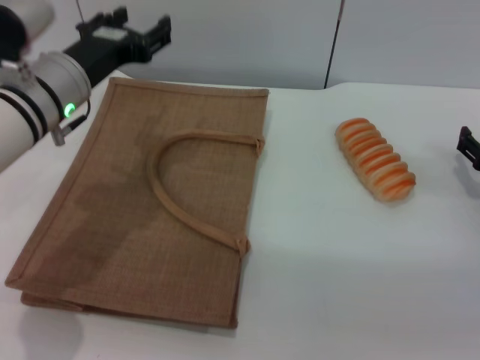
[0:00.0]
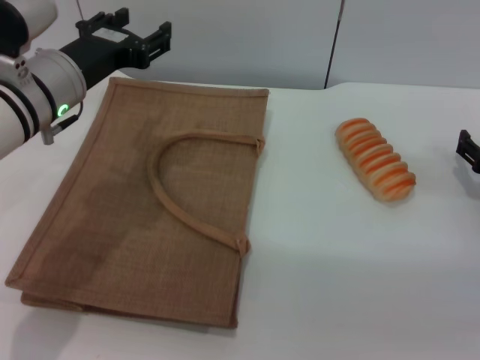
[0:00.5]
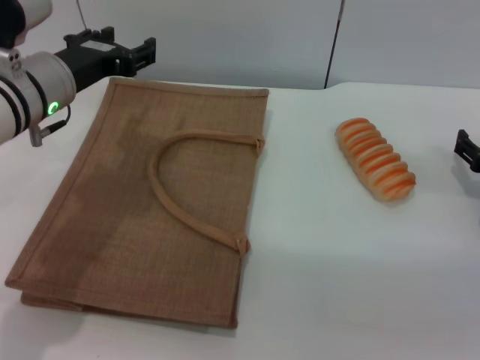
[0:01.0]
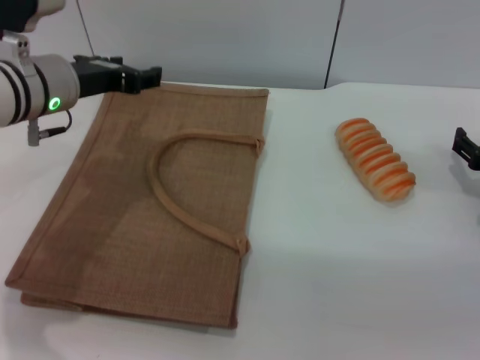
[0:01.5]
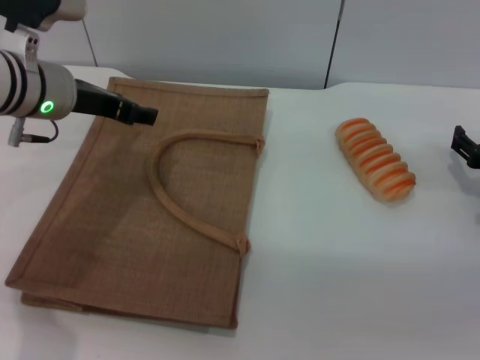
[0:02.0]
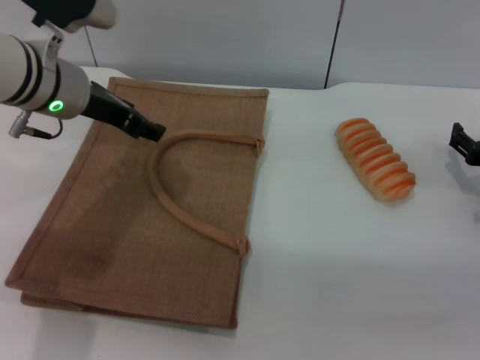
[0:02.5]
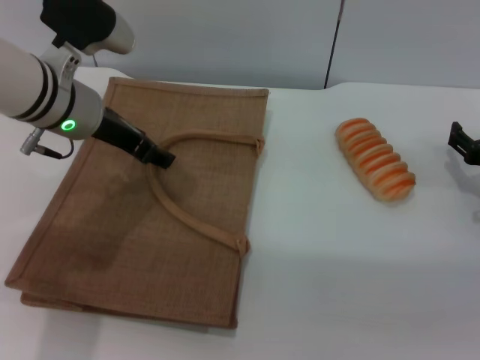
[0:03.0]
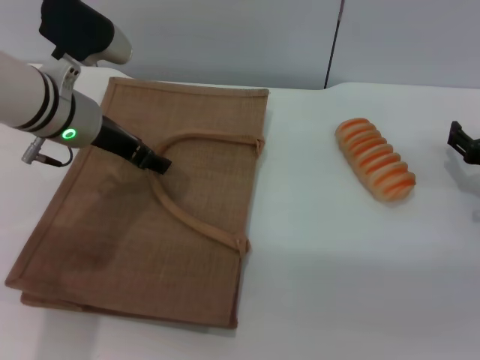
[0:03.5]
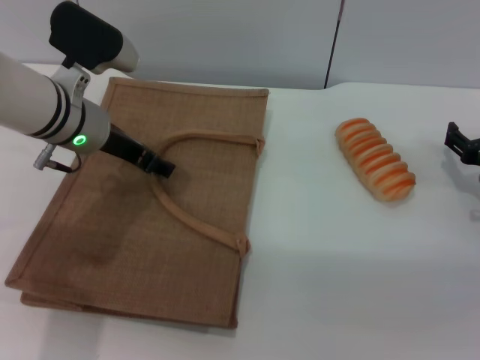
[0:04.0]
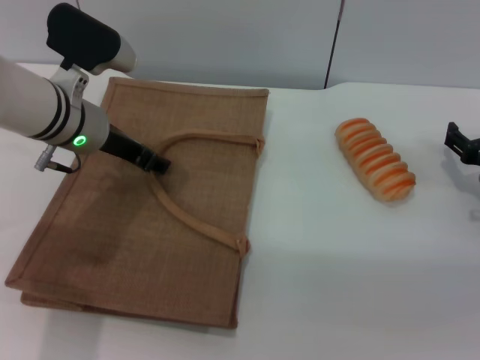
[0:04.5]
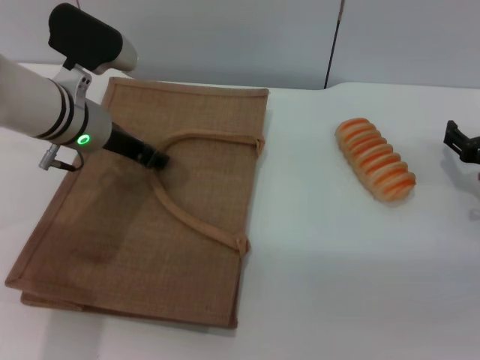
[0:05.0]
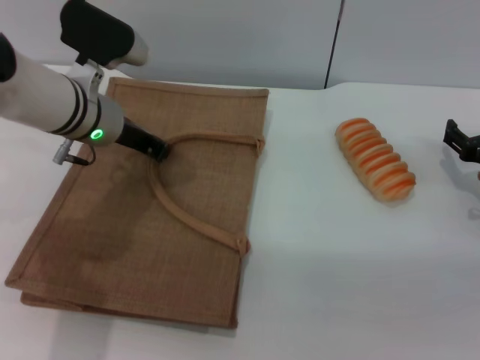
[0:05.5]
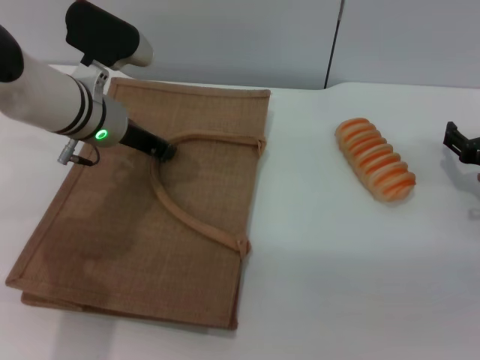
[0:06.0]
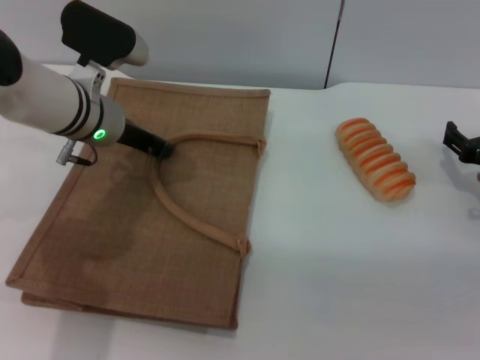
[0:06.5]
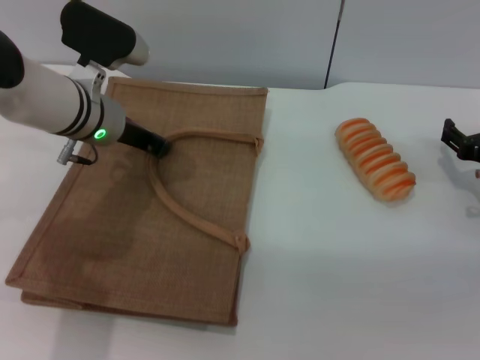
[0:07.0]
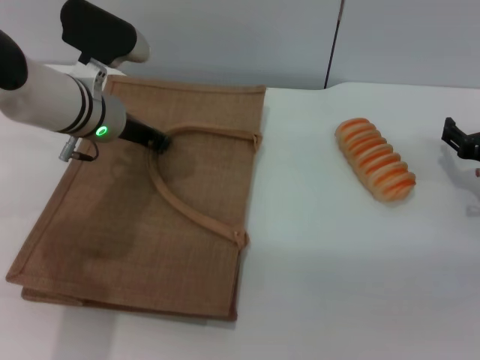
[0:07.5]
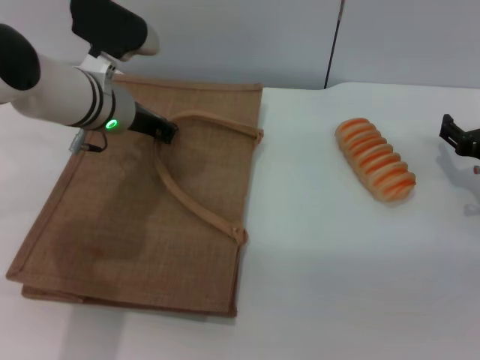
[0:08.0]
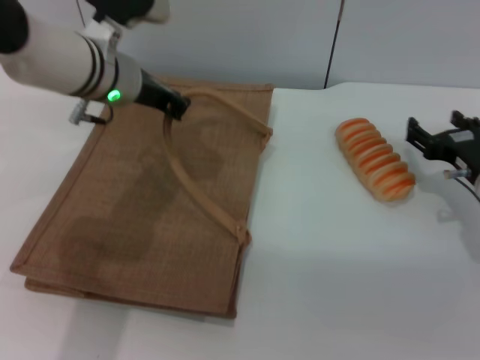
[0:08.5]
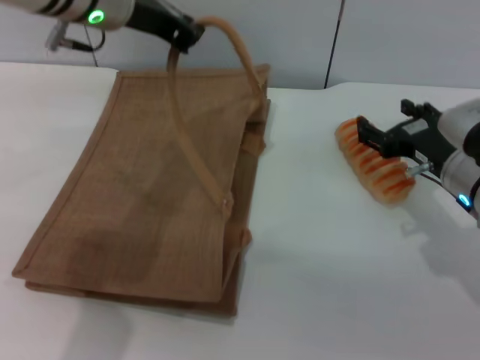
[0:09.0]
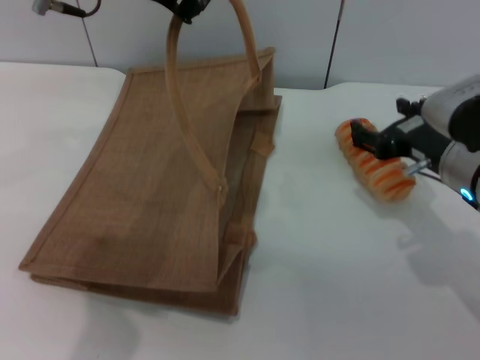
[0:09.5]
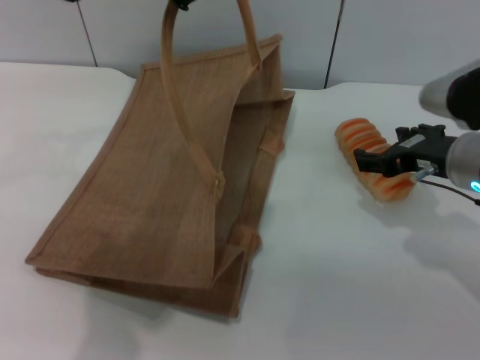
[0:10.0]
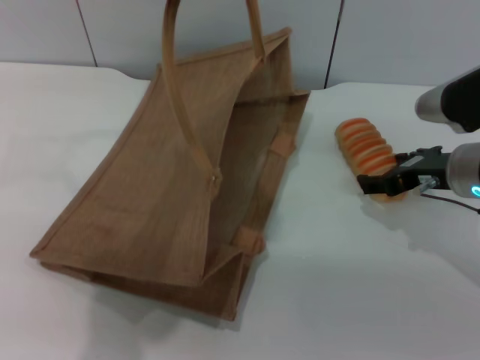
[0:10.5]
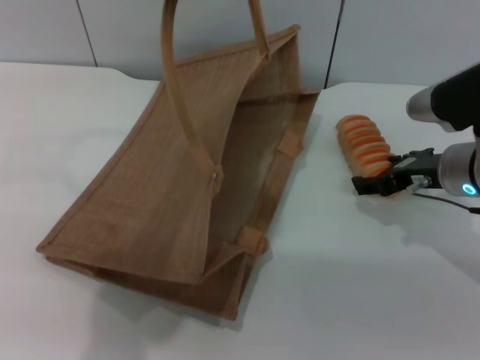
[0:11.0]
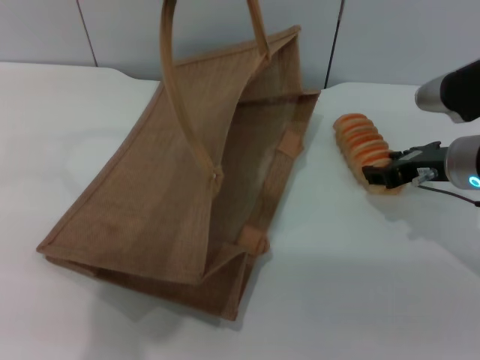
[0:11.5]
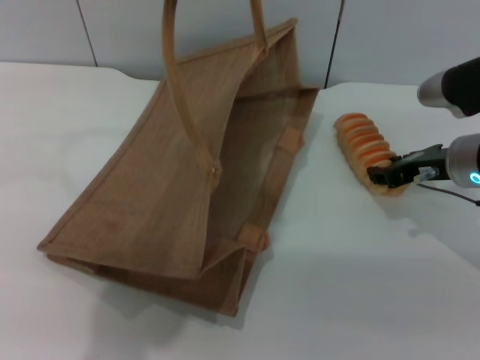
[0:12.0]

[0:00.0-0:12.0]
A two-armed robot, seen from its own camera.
Task of the whole recording: pick up the bread from the table and place it in the brown handbag.
Step, 0:00.0 to 0:08.0: Lift the woven bag with the left gripper to open it.
0:02.0 to 0:04.0: The grippers make only small movements.
0:04.0 to 0:06.0: The left gripper closes up.
0:06.0 to 0:08.0: The grippers make only small movements.
0:08.0 to 0:10.0: The right gripper is displaced upward and to the left by approximately 15 cm, while the left gripper shifts approximately 20 cm upward.
0:10.0 to 0:12.0: The right gripper closes its fingers.

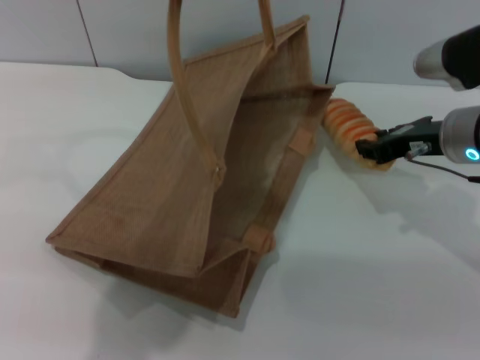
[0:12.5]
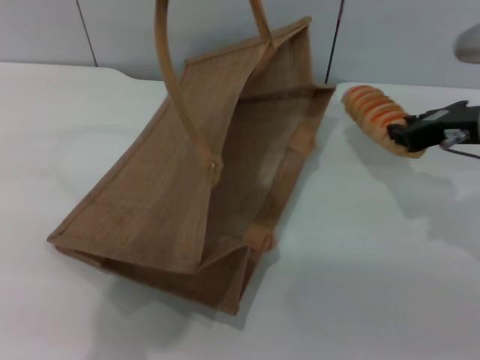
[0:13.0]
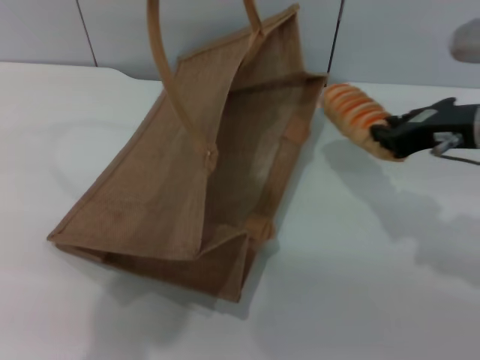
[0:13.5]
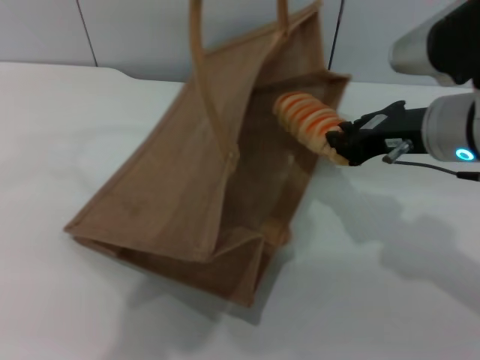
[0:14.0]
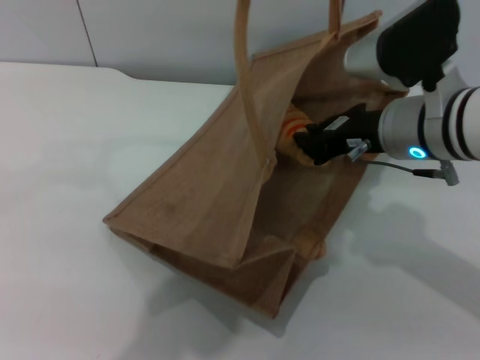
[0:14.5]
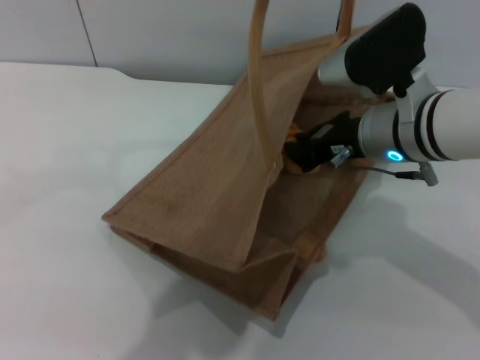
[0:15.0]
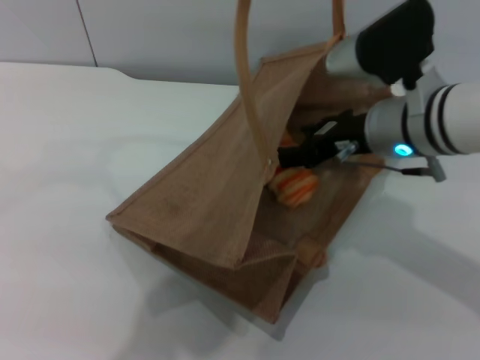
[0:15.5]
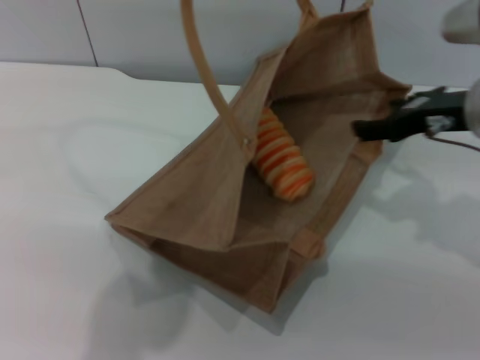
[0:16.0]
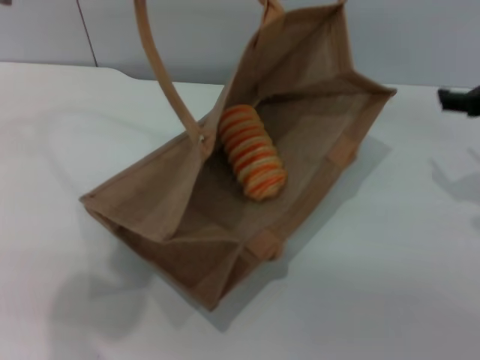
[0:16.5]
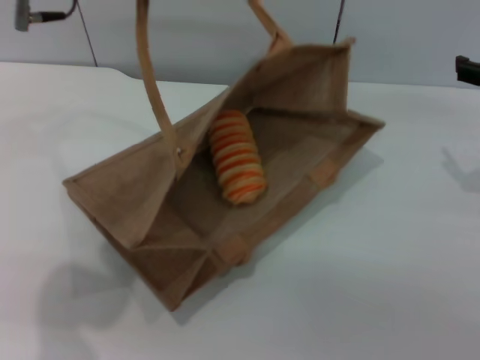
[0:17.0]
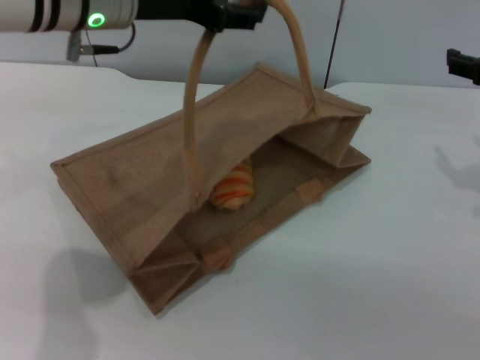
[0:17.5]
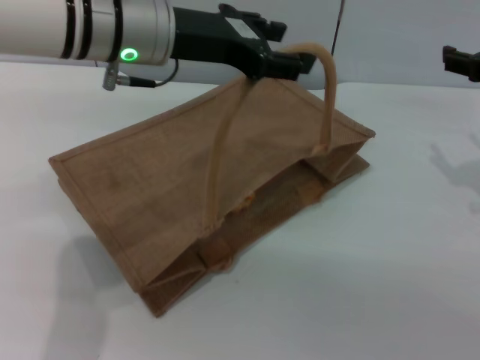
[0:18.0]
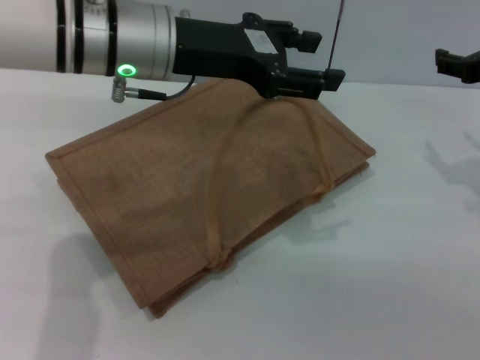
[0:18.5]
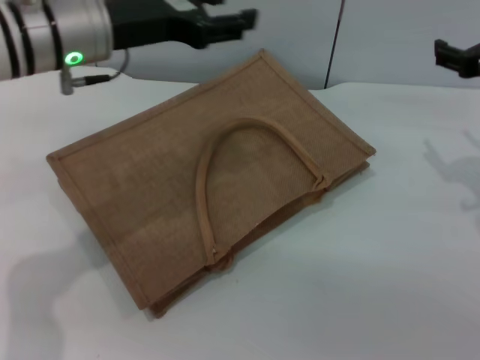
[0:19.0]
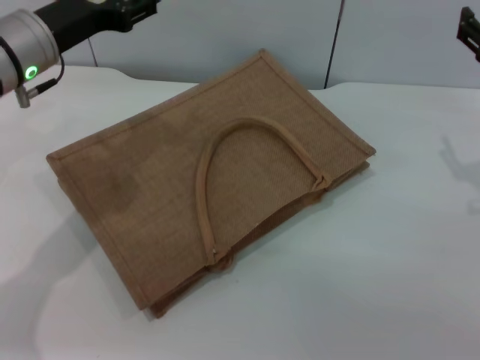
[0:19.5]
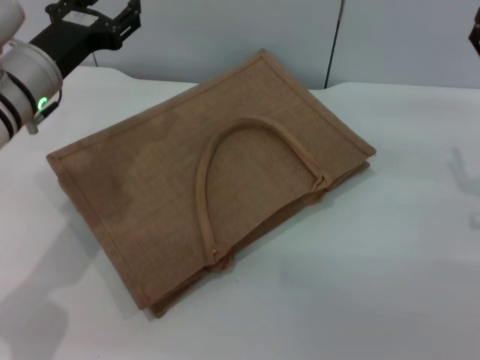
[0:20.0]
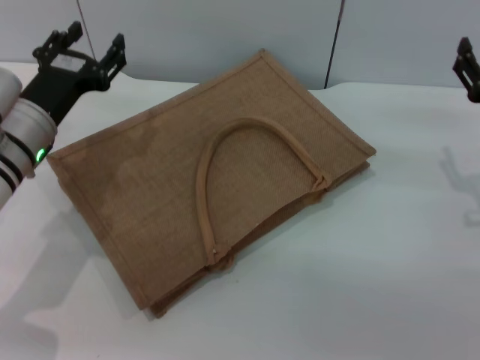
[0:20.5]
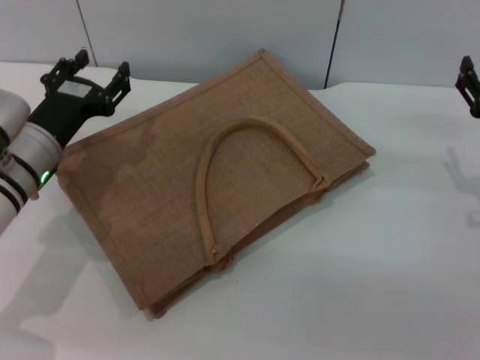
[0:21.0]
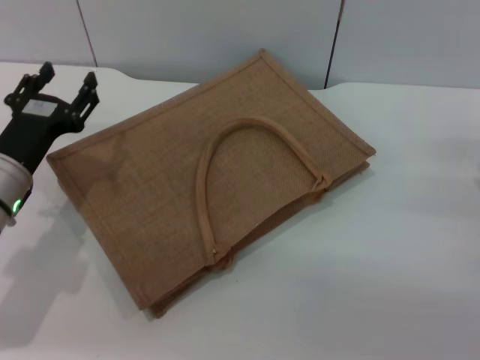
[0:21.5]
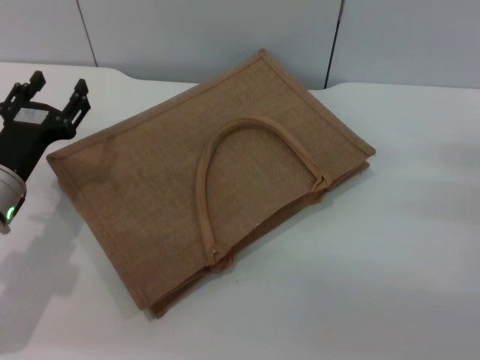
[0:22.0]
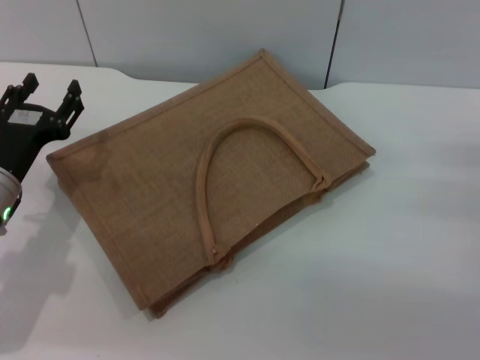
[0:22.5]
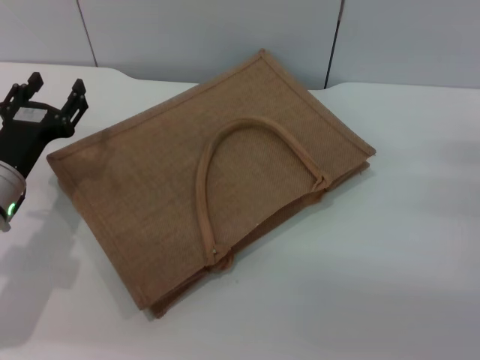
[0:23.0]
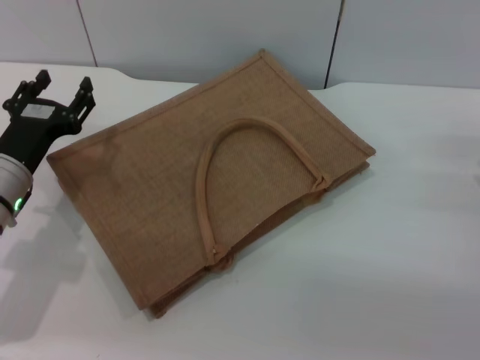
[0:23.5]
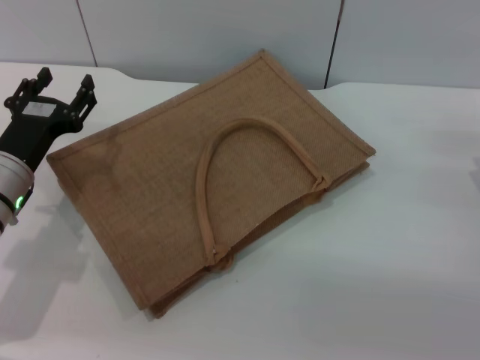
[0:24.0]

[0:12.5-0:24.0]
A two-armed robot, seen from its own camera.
Task of the whole recording: pick up the bread from the table and place it in the brown handbag.
Step, 0:13.0 to 0:15.5: Place the bread into the woven bag with the right gripper.
Step, 0:16.0 to 0:18.5: Lower the woven bag with the left gripper to close it.
0:12.5 to 0:14.5: The right gripper travels to the left by some 5 cm; the left gripper moves to the right, about 5 cm.
0:14.5 to 0:16.5: The left gripper shifts some 10 cm to the left and downward. Meanwhile the right gripper shifts some 15 cm to the right, and opens.
0:16.5 to 0:18.5: The left gripper shifts some 10 cm downward, and opens up.
0:18.5 to 0:20.0: The left gripper shifts some 15 cm to the left and downward. The right gripper travels downward by approximately 5 cm.
0:20.0 to 0:22.0: The left gripper moves downward and backward, approximately 10 cm.
0:22.0 to 0:24.0: The grippers stay close to where they were, moving slightly.
